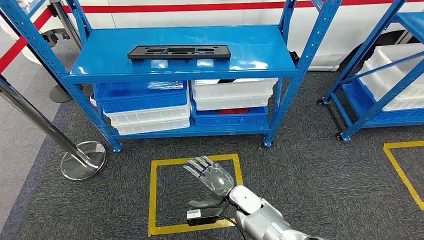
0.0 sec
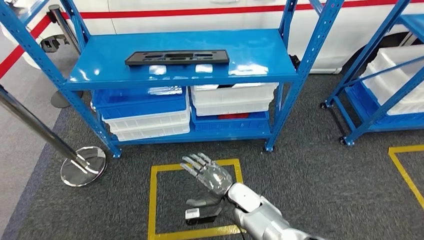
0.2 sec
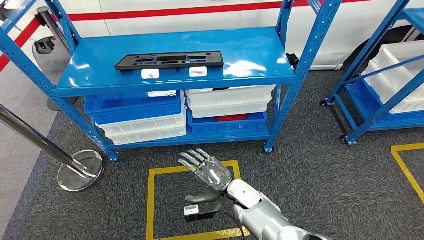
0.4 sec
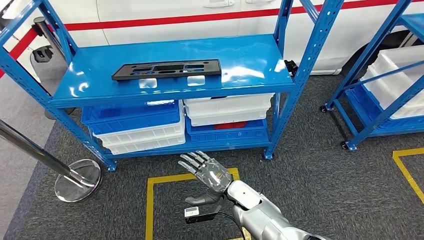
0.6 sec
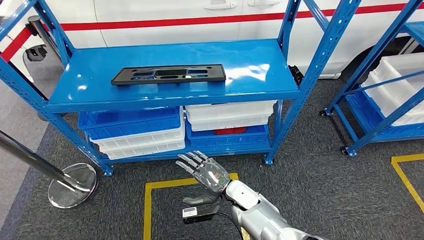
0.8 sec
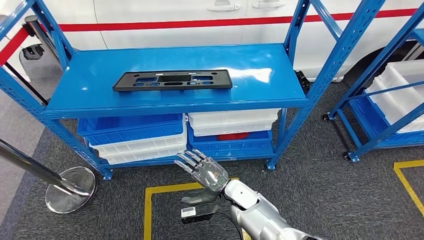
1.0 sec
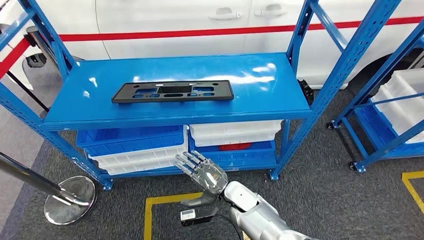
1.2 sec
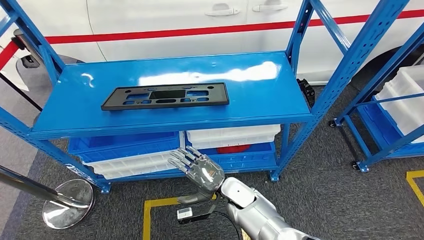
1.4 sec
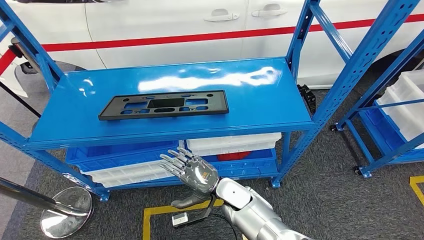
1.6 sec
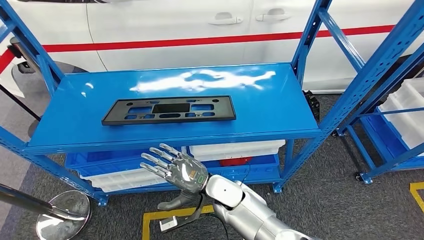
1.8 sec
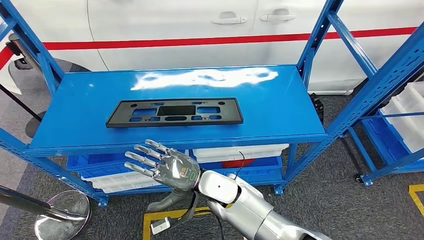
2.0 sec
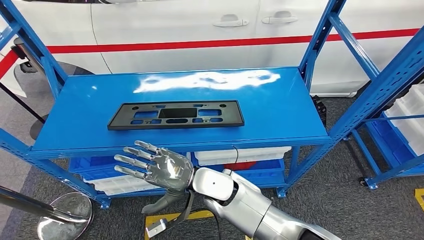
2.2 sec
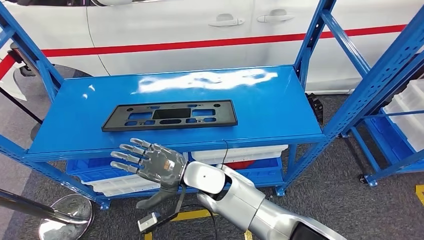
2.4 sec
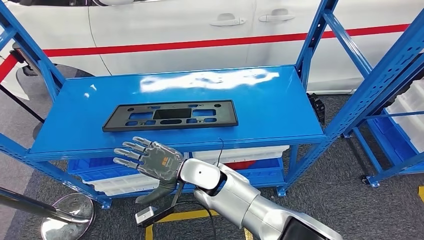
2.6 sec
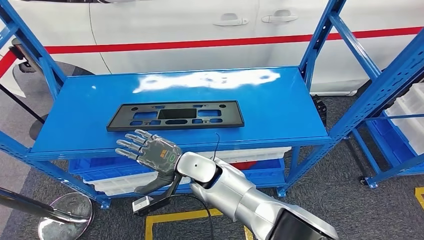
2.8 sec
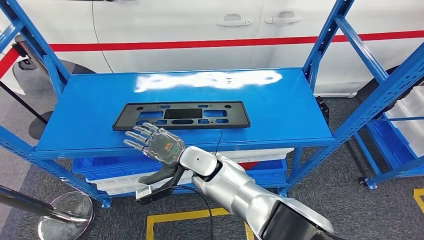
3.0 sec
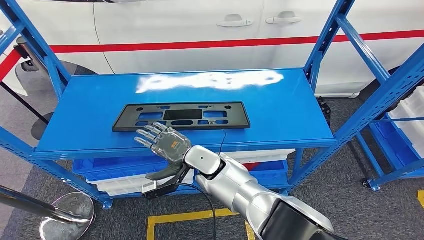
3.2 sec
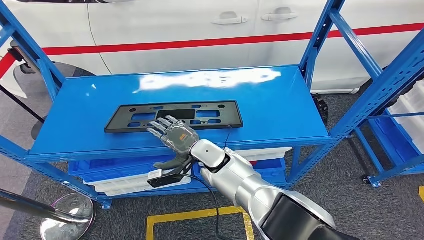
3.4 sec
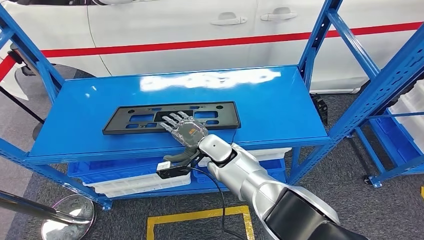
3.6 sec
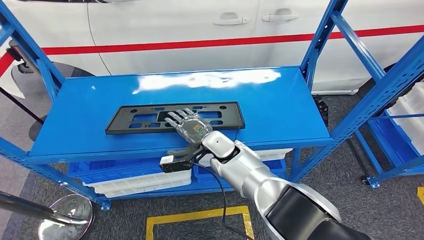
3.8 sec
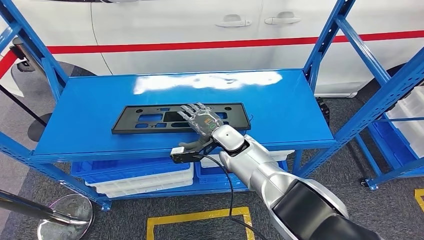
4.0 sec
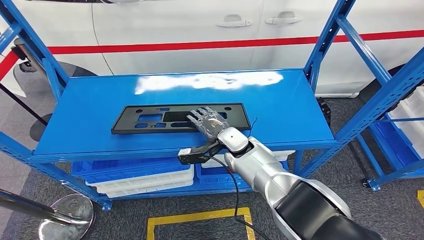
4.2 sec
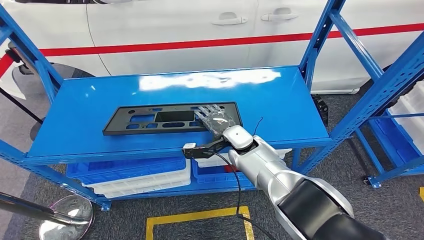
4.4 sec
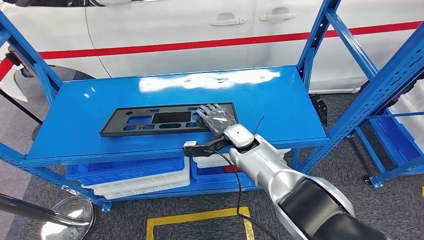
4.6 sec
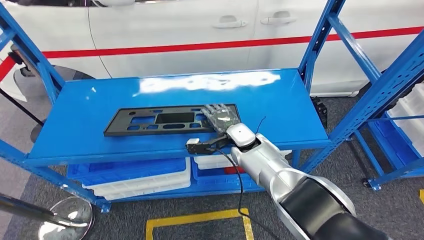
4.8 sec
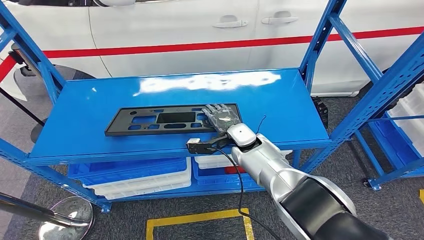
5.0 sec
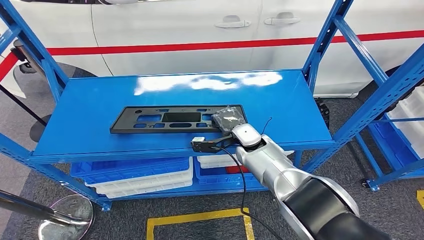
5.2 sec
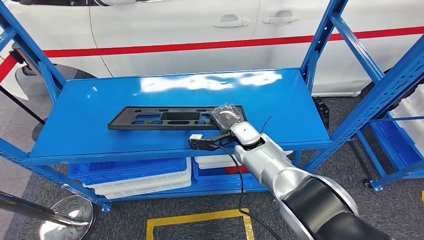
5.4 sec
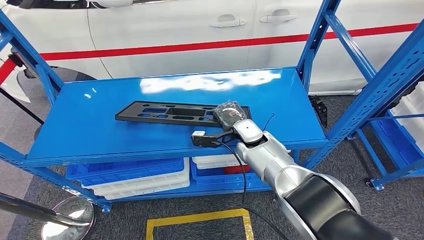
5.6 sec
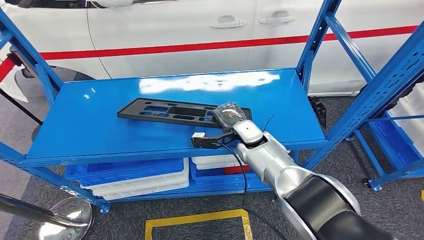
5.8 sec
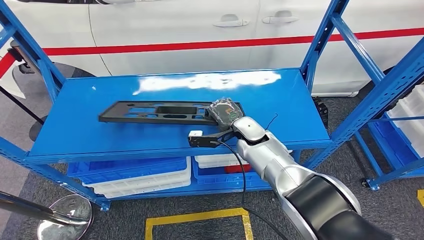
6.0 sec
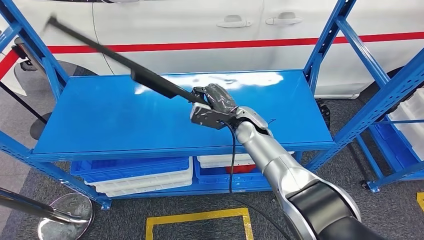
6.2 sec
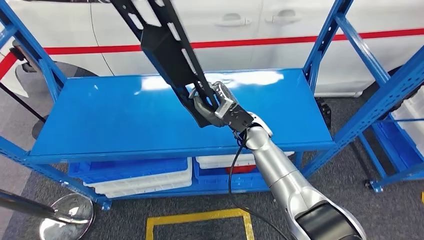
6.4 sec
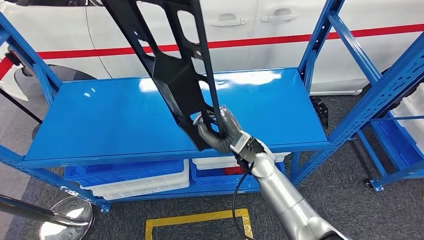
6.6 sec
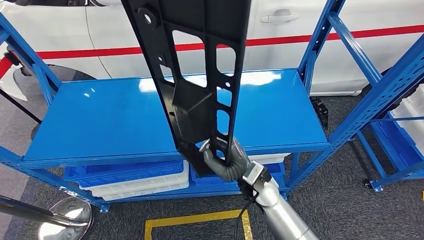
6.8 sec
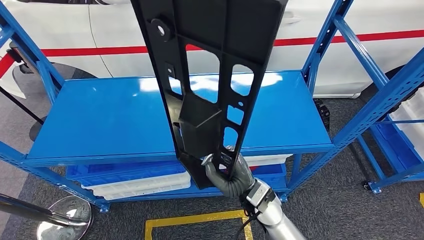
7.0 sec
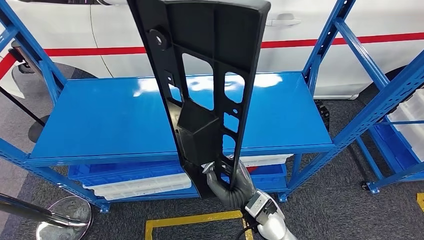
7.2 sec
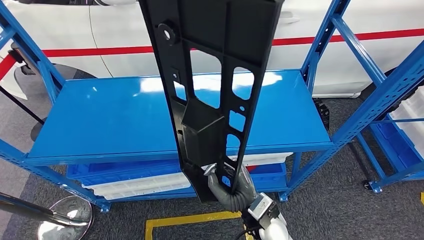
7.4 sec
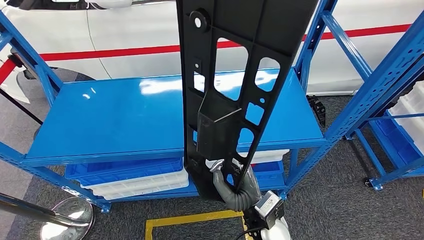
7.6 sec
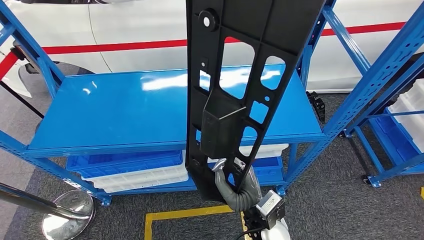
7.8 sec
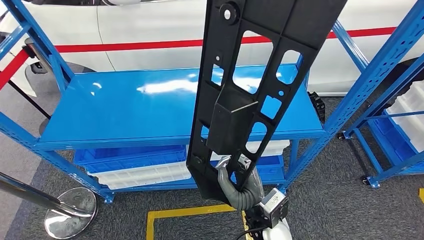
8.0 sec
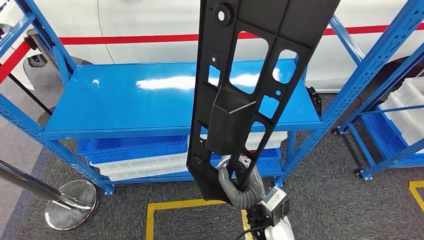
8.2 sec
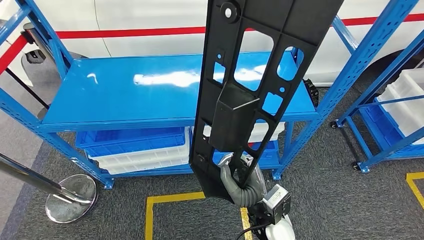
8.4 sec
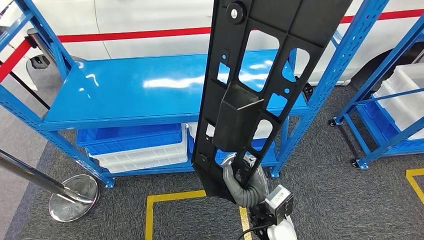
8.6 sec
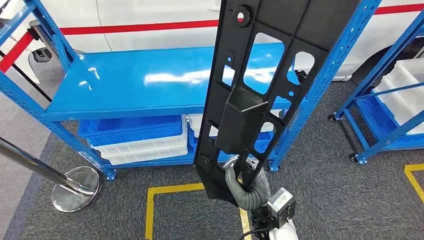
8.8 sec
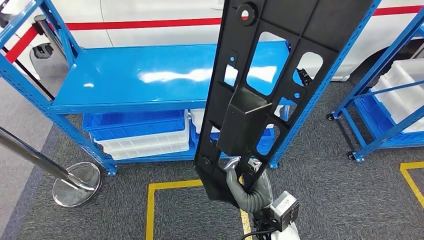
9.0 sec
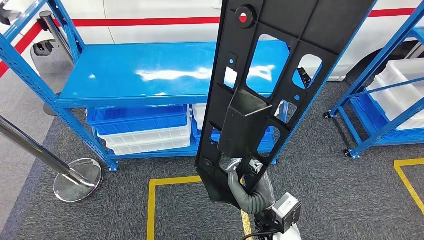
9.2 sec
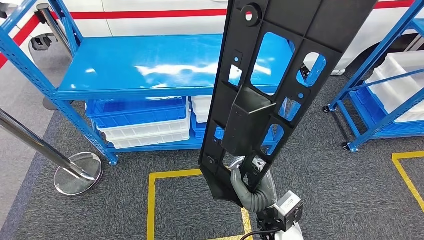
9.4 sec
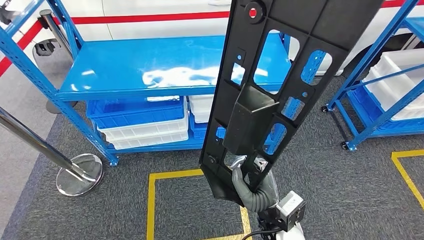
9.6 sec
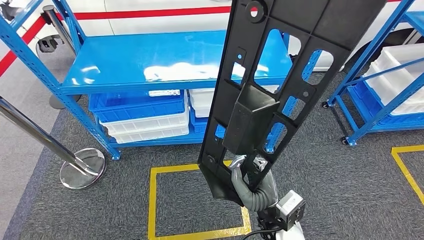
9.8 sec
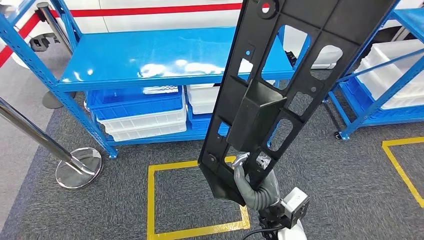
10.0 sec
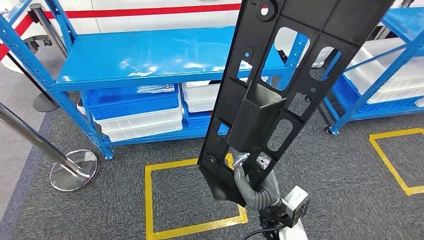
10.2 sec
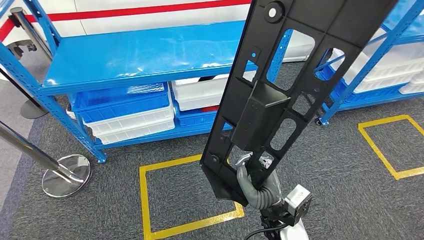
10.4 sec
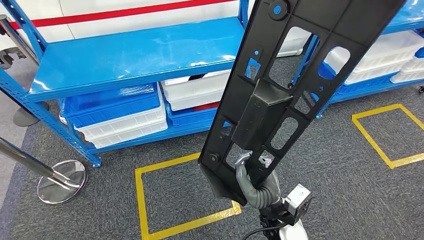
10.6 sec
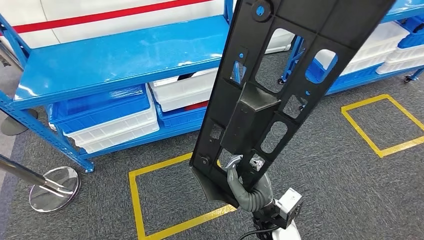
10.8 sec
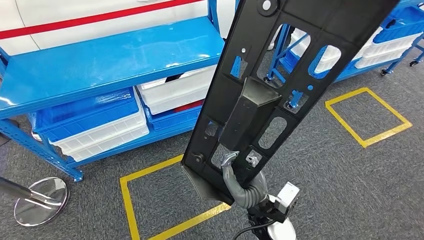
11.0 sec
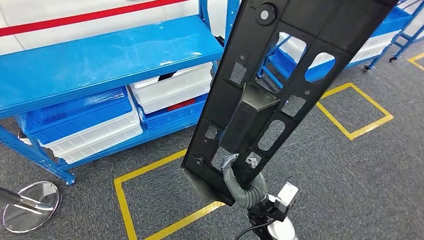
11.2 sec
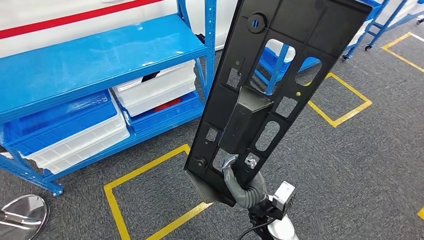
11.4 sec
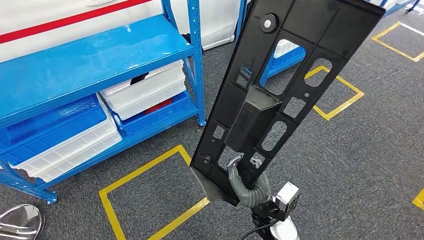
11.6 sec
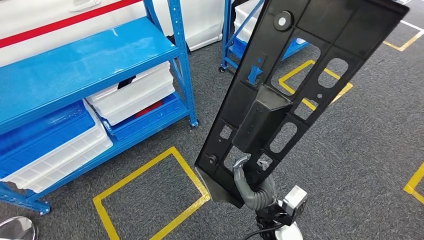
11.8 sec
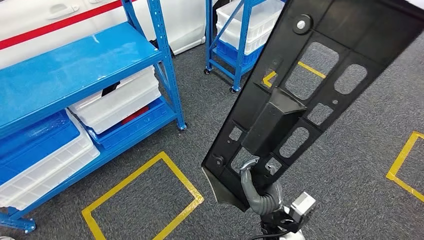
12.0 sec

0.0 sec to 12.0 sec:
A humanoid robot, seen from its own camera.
Step, 0.0 sec to 6.2 sec: Pick up the large material from the shelf.

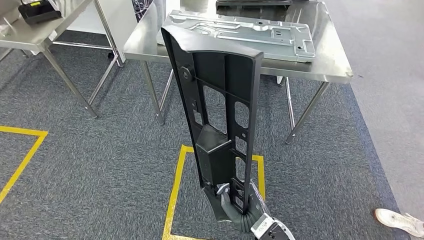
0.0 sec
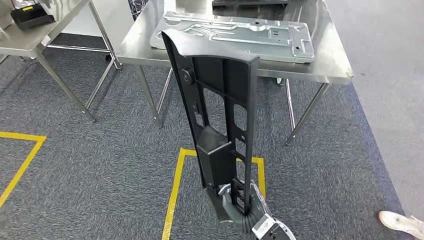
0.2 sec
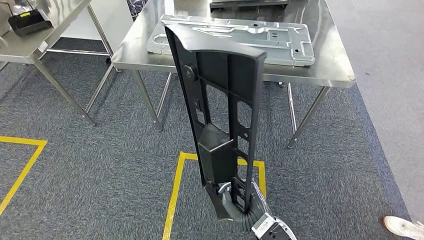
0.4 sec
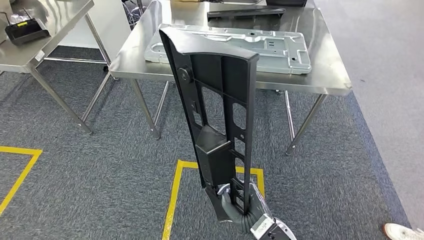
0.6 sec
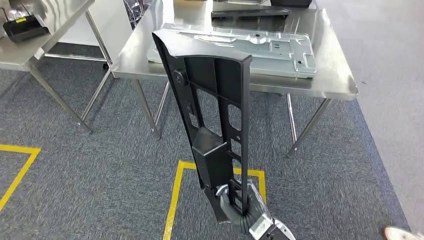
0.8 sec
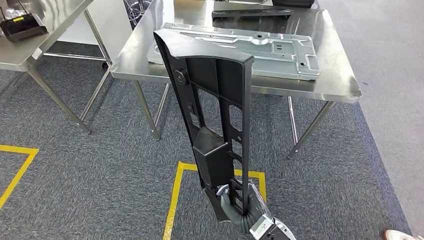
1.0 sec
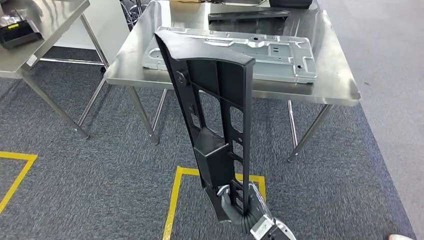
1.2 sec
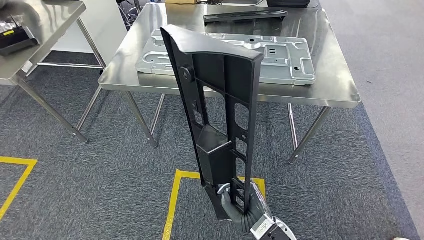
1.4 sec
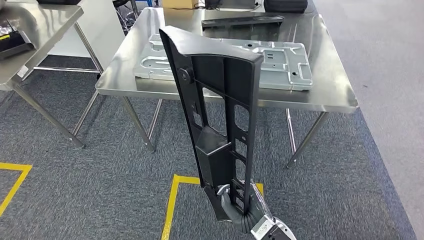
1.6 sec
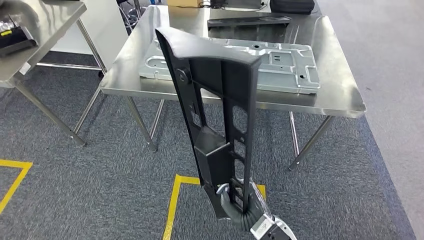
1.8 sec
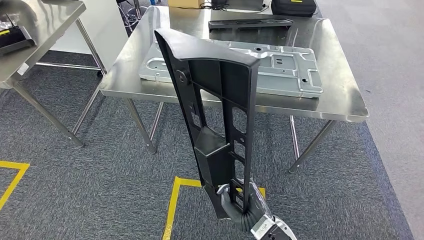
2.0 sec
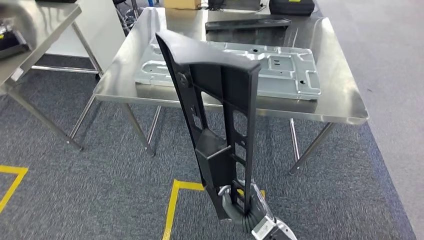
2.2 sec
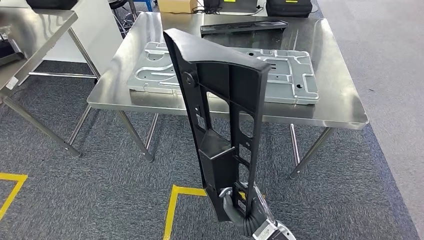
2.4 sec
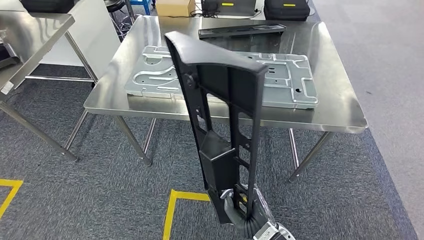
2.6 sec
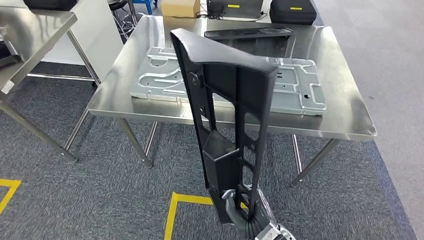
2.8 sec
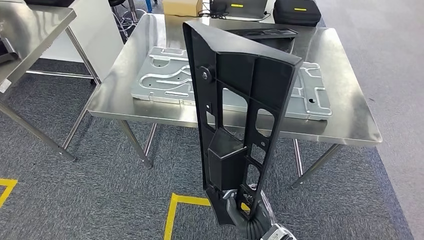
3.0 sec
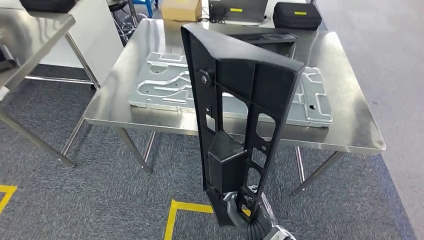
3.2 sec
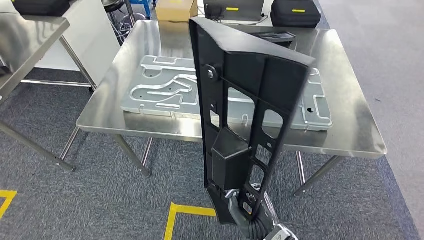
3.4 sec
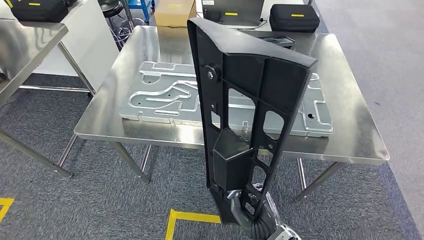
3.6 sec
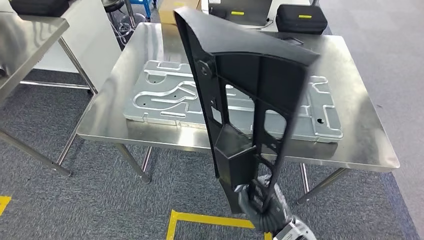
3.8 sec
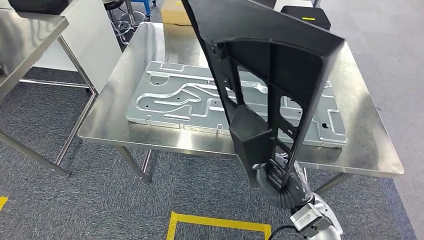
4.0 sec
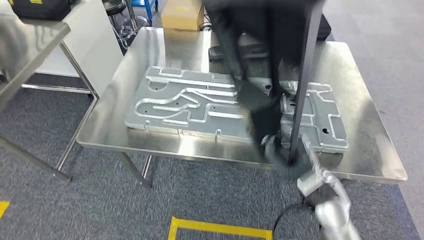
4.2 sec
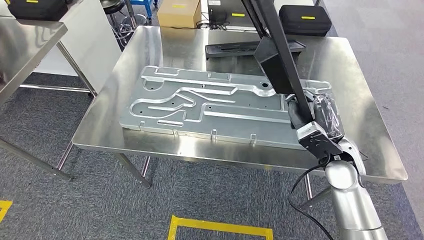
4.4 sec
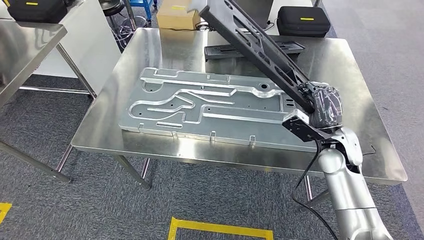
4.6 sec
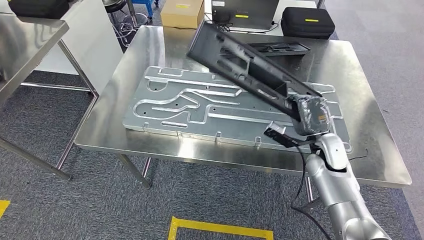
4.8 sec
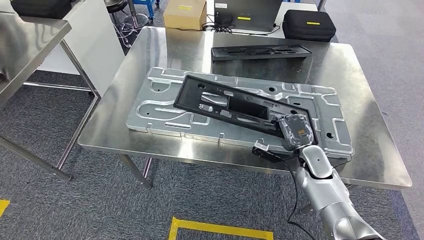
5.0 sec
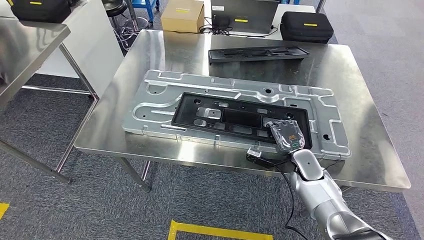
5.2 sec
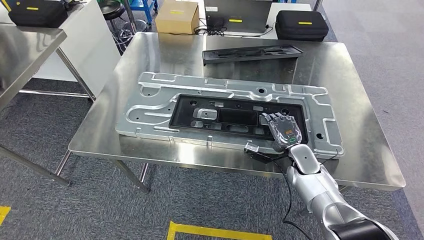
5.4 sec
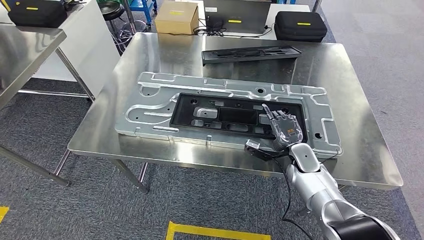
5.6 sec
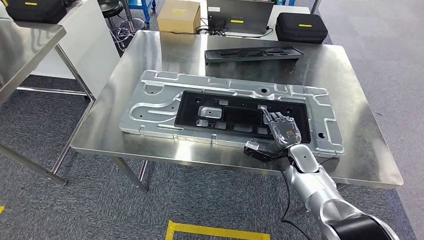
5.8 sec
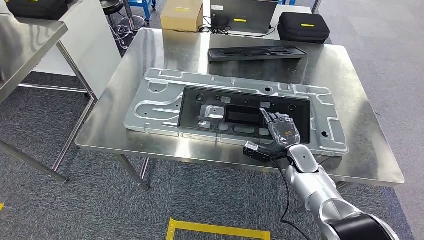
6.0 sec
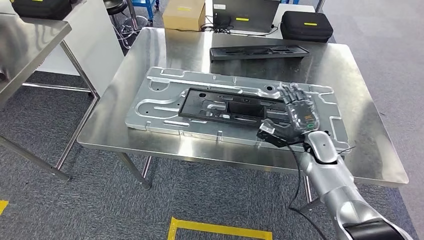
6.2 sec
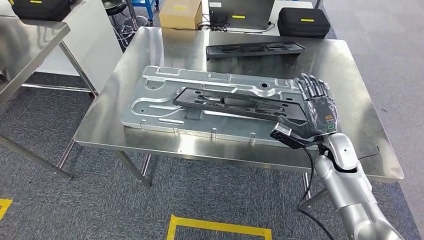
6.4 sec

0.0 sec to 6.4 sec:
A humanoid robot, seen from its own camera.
Step, 0.0 sec to 3.6 sec: Move the large material to the workbench.
Step, 4.0 sec to 5.8 sec: Insert the large material into the corresponding slot on the workbench.
